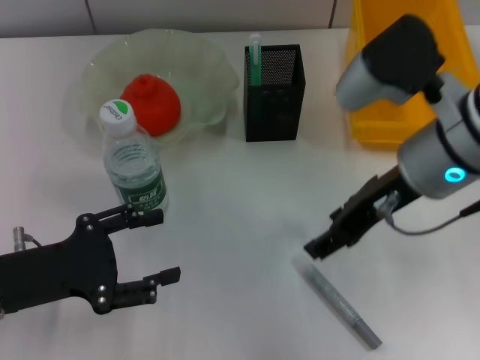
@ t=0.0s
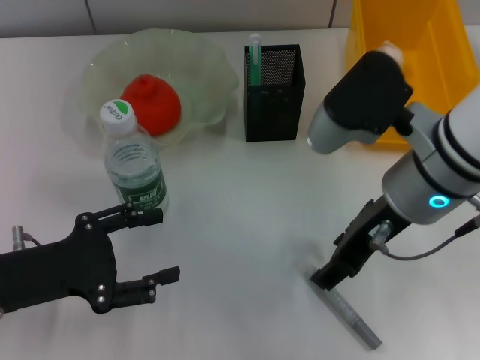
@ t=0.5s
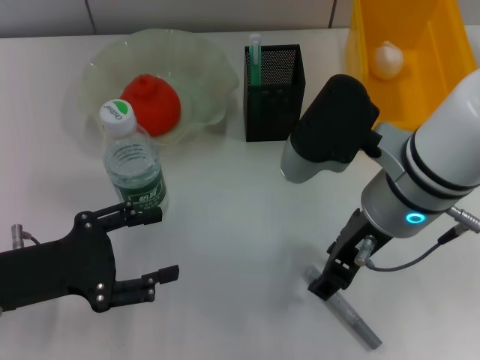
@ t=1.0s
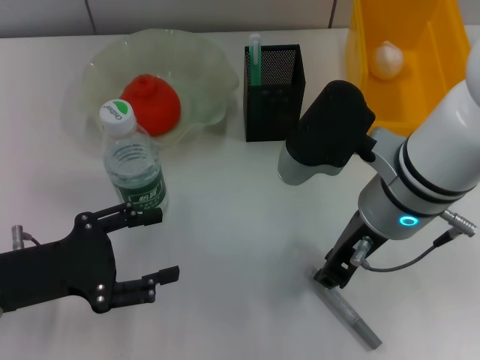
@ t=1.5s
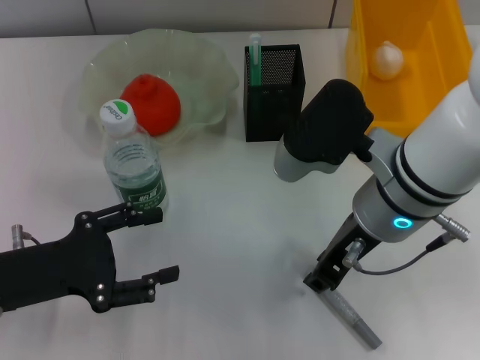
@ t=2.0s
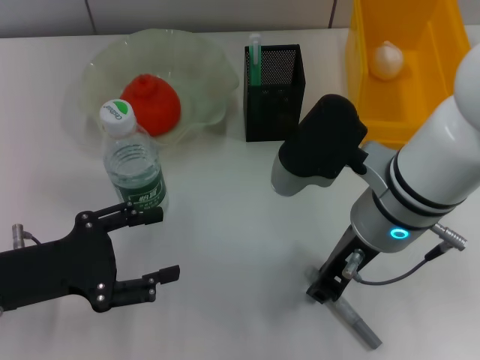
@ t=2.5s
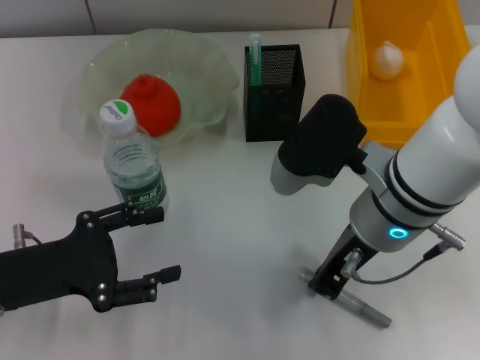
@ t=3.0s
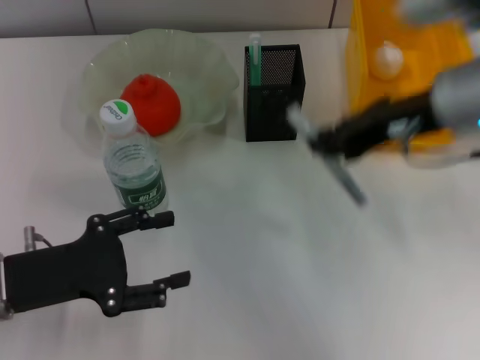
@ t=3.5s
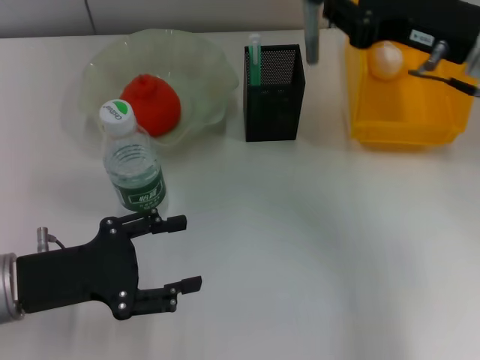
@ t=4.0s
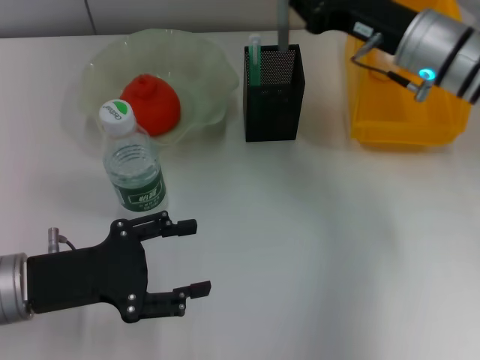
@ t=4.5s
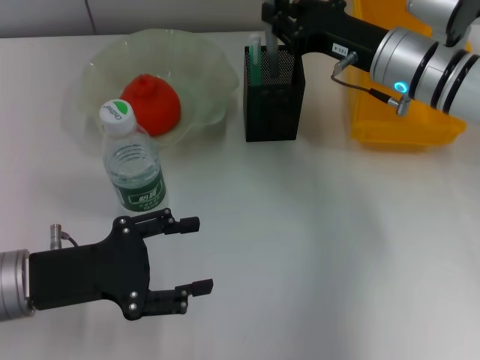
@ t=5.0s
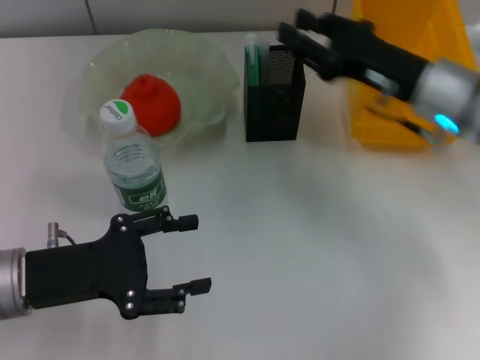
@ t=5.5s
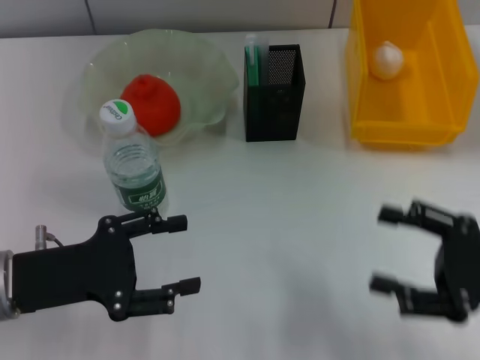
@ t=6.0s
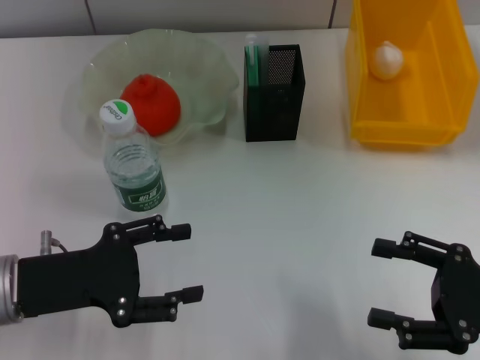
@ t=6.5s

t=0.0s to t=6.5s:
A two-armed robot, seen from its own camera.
Step, t=0.0s to t=3.0s: Grab the gray glue with the right hand.
Step, t=3.5s to t=5.0s: Place the gray glue into the pen holder with the right hand.
t=0.0s to t=2.0s: The right gripper shifts by about 5 cm, and closes up.
t=2.0s to t=4.5s: The right gripper is displaced forward and to the right by about 15 cm.
t=4.5s to t=6.5s: The right gripper travels backward and to the right by roughly 25 cm, and opens.

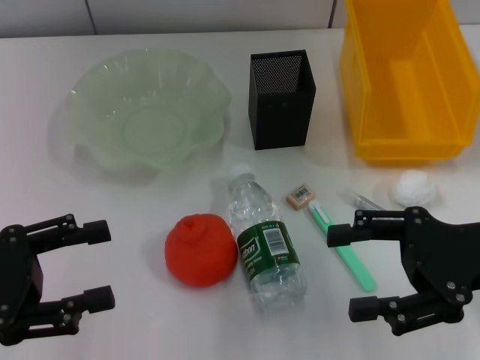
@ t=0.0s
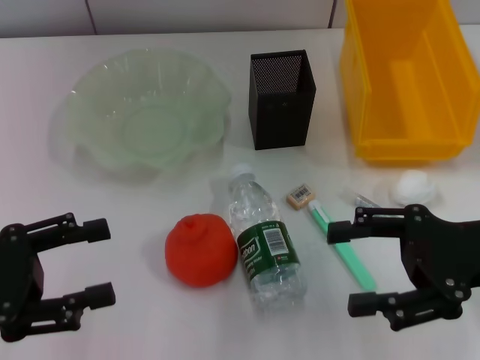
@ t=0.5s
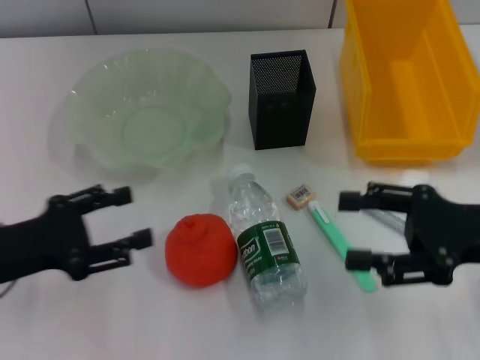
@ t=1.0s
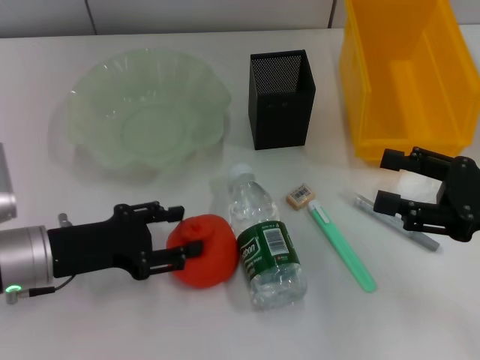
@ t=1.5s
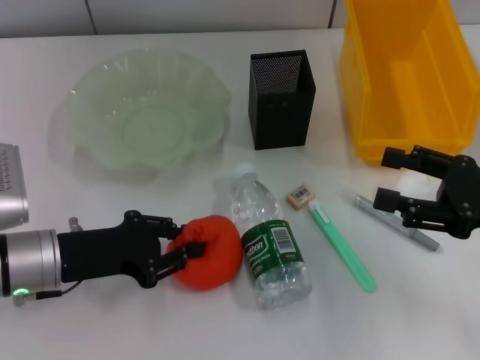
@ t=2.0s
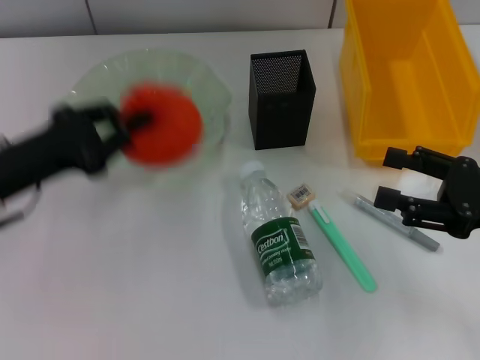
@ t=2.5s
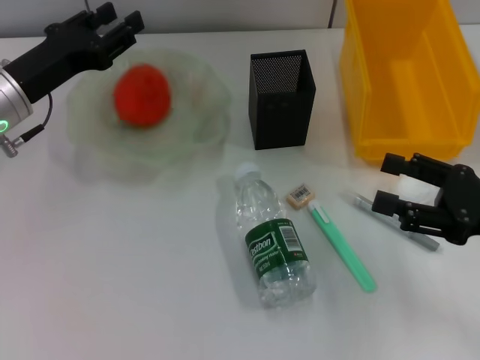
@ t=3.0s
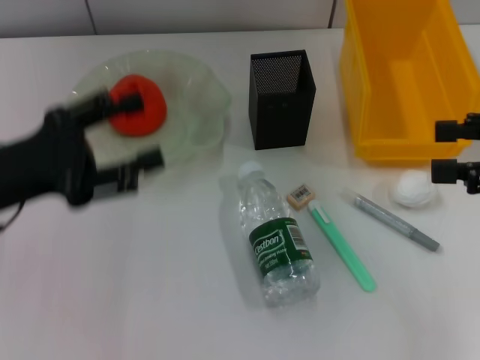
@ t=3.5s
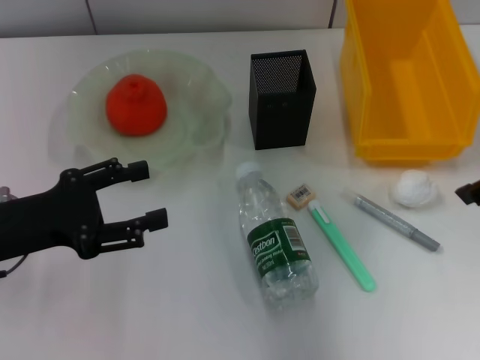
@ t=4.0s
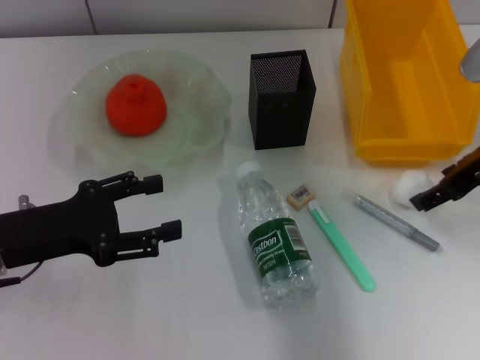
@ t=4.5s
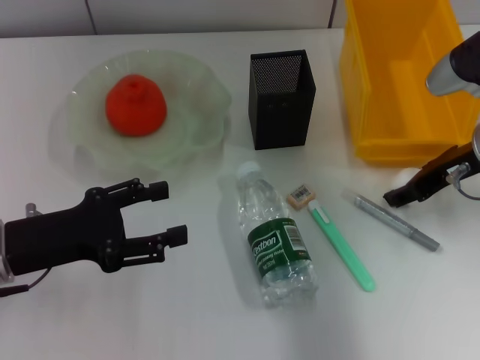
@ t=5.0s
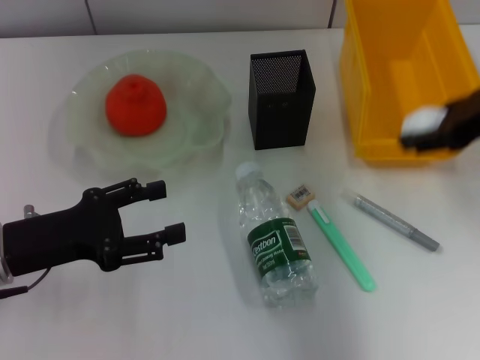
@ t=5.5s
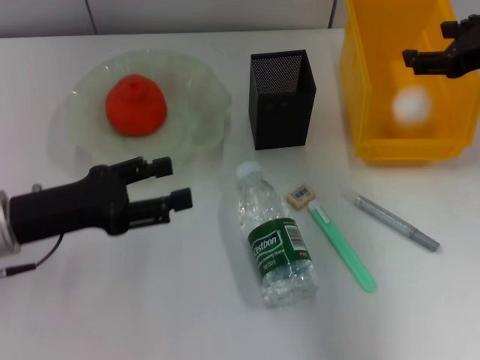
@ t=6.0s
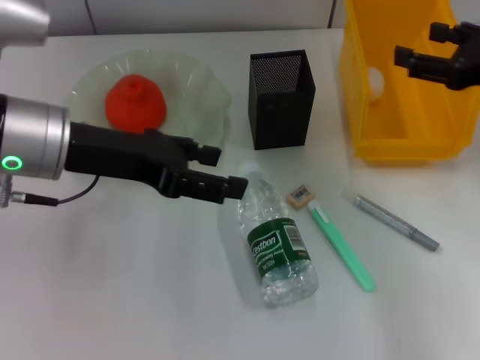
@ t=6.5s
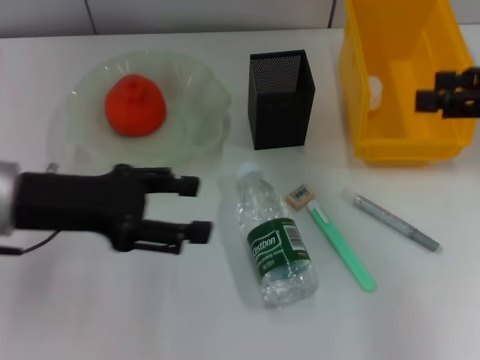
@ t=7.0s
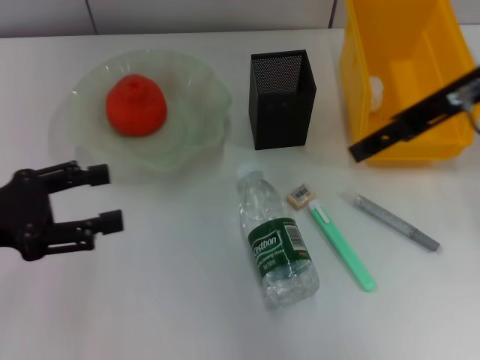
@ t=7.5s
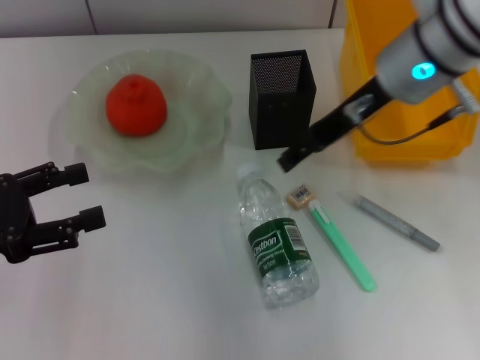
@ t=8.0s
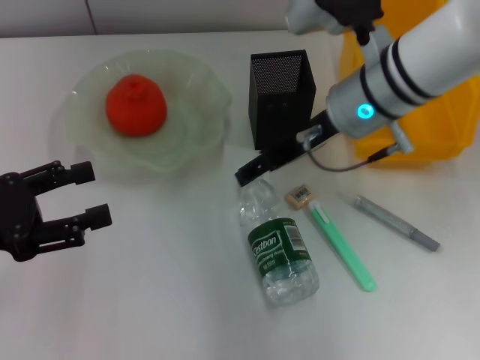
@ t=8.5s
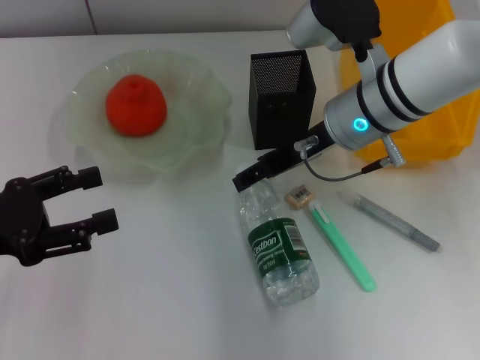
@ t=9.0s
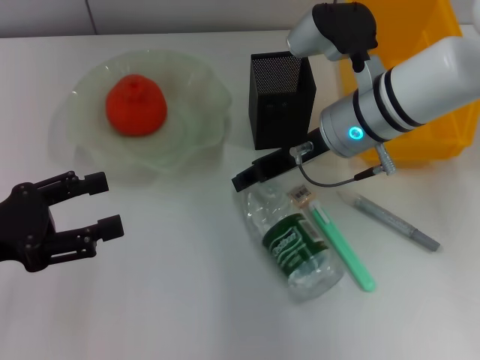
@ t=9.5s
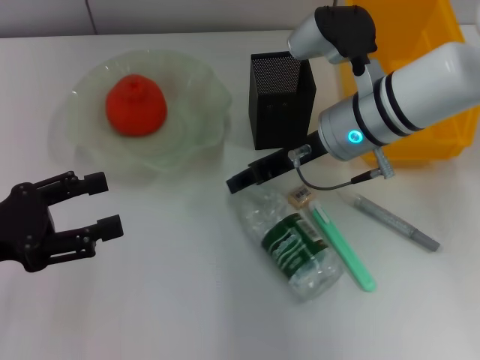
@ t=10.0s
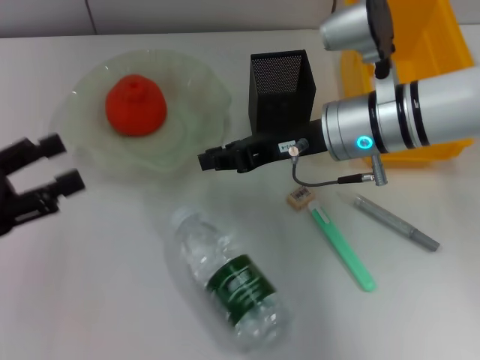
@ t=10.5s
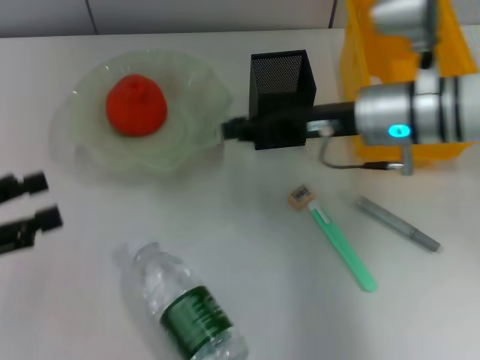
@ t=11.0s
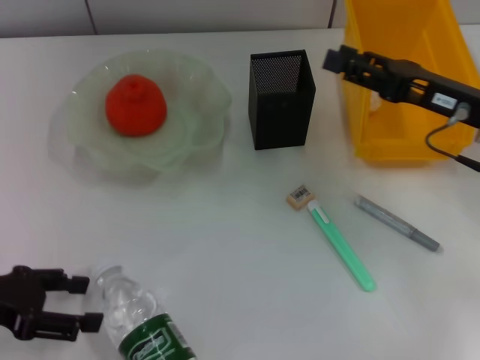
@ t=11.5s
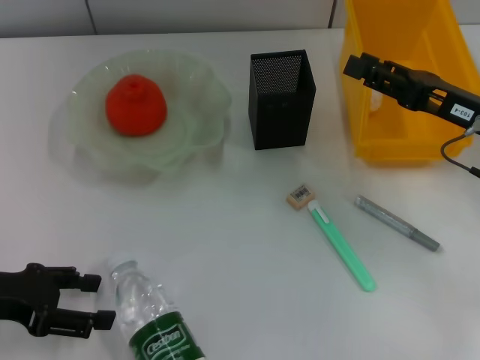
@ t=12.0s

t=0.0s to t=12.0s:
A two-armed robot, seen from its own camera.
Step, t=0.0s to t=2.0s: Grab the orange with the left hand.
Step, t=3.5s to t=5.0s: Grab the paper ball with the right hand.
Step, t=5.5s to t=6.0s: Place the paper ball into the trash can with the right hand.
t=0.0s to t=2.0s: The left gripper travels to the right, downward and forward by roughly 15 cm, and closes its fingers.
t=2.0s to t=4.0s: The left gripper travels upward by some 5 cm, travels forward and back again, approximately 10 cm each way, and opens its fingers. The right gripper goes some 15 cm upward and forward.
t=4.0s to t=6.0s: The right gripper travels downward and back again, about 10 cm each way.
t=6.0s to t=8.0s: The right gripper goes about 15 cm to the left. The left gripper heads to the left, covering roughly 5 cm.
t=8.0s to t=10.0s: The right gripper is displaced downward by roughly 10 cm, and closes up.
t=10.0s to t=12.0s: The right gripper heads to the right, covering about 15 cm, and closes, then reopens.

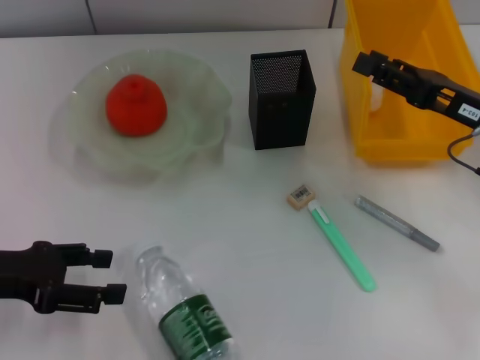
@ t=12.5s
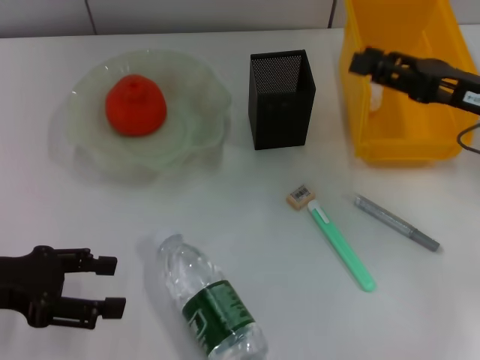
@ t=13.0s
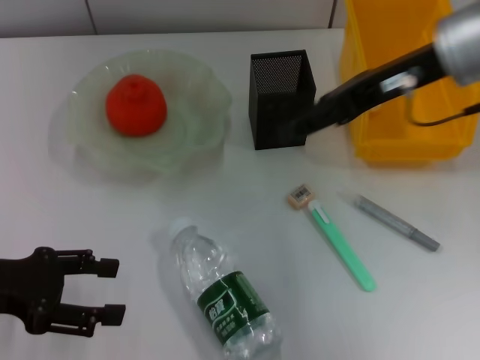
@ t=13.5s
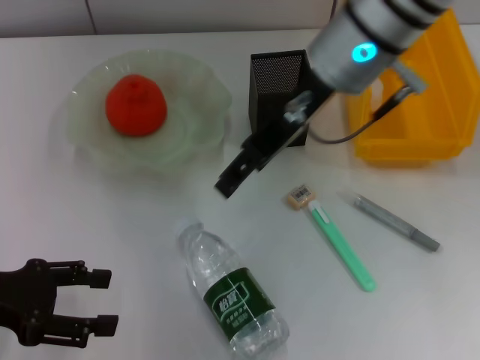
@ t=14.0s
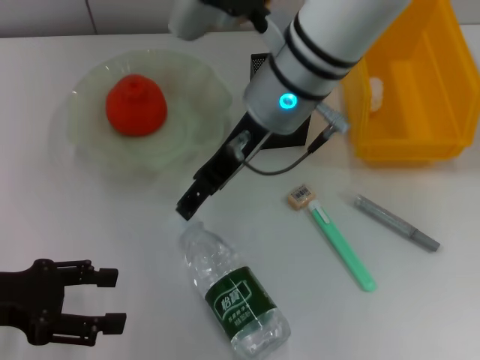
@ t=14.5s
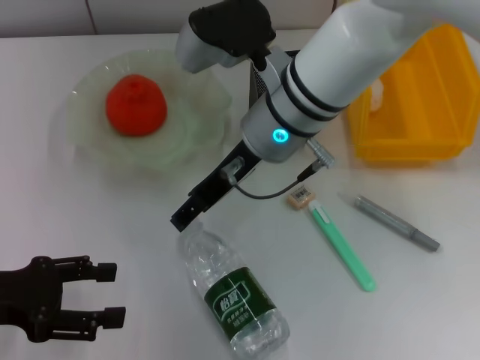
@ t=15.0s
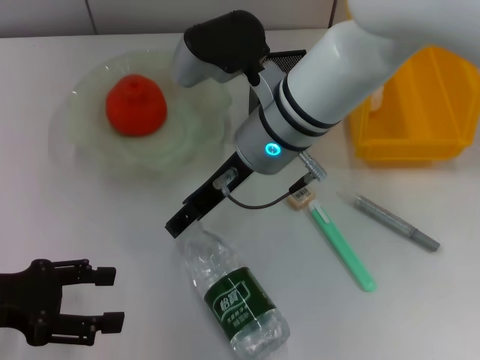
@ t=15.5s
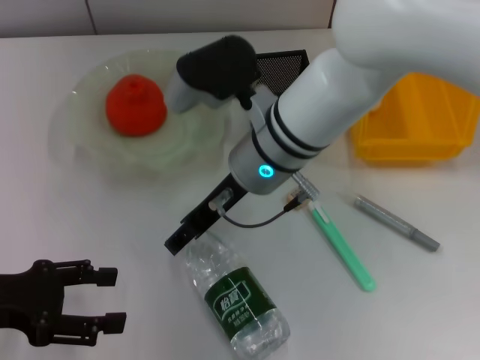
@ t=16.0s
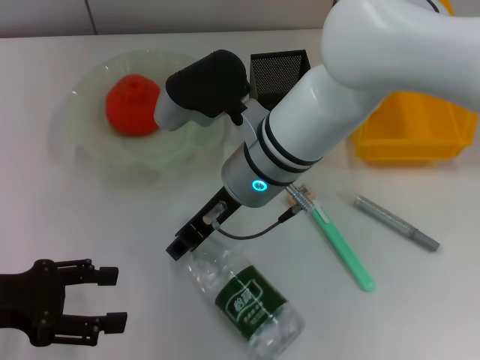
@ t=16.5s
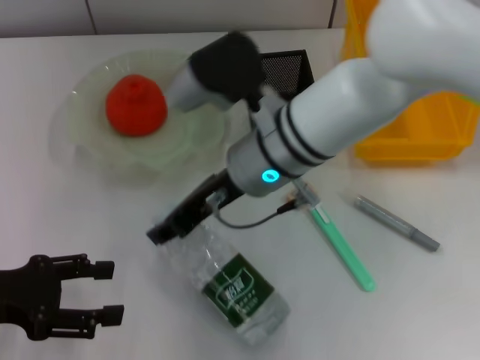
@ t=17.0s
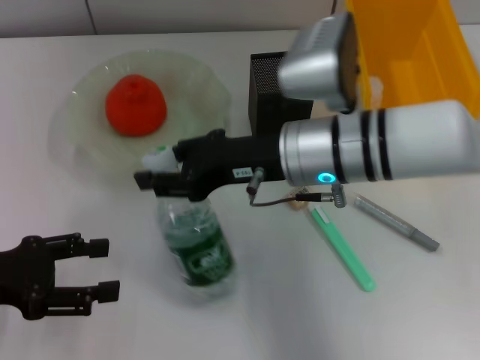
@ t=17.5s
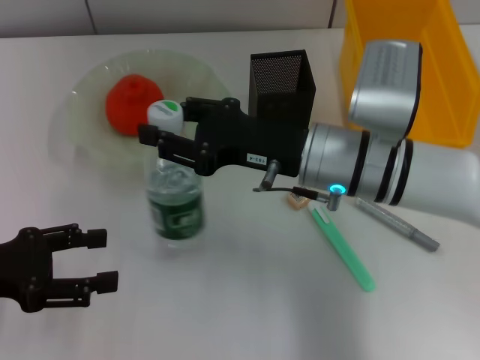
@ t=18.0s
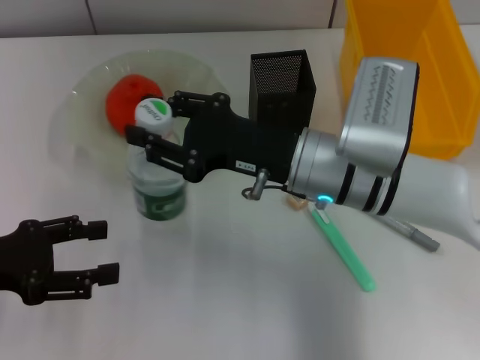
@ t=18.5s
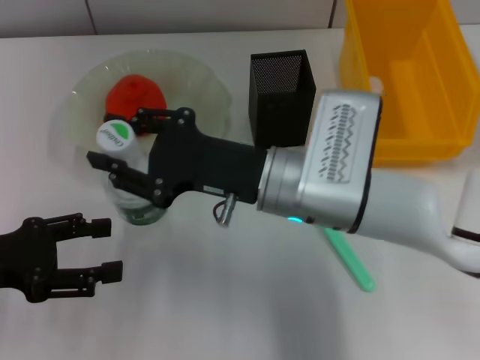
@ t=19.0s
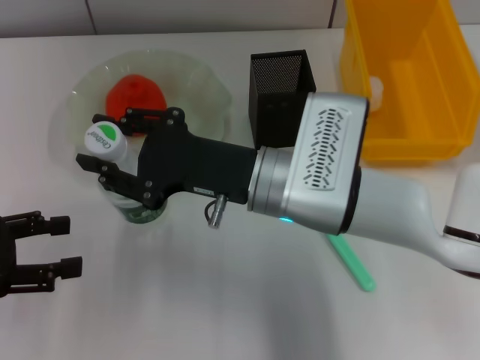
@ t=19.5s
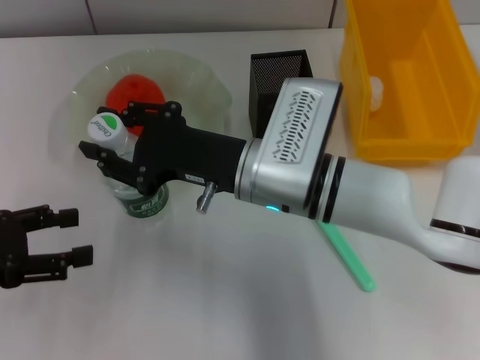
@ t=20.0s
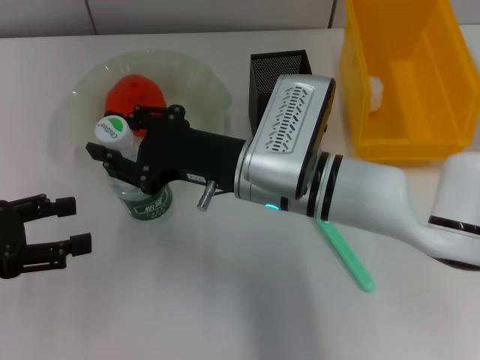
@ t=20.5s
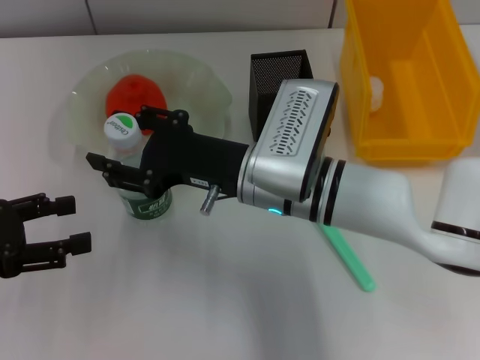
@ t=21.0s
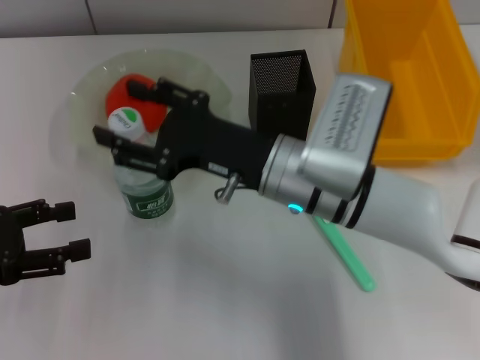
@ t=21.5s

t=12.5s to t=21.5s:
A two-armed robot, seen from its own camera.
Step, t=12.5s to t=16.5s: Grab the water bottle with the right hand.
Step, t=17.0s to t=21.0s: Place the water bottle on the table with the right hand.
t=12.5s to t=14.5s: The right gripper goes approximately 25 cm to the left.
t=14.5s to t=17.0s: The right gripper moves downward, approximately 5 cm, and closes its fingers.
t=17.0s to t=19.5s: The right gripper shifts by some 5 cm.
t=19.5s to t=21.5s: The grippers make only small movements.
